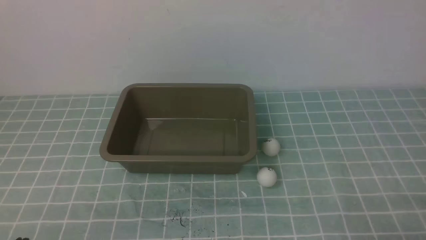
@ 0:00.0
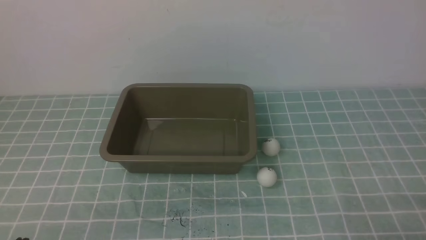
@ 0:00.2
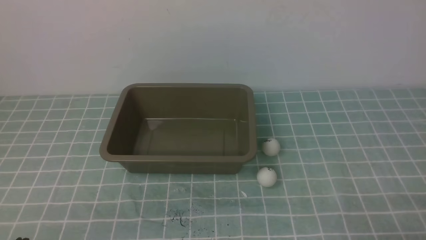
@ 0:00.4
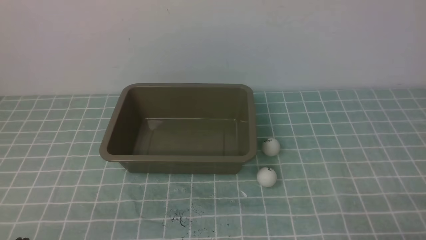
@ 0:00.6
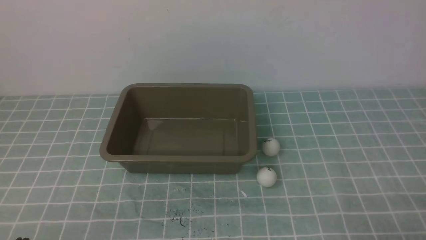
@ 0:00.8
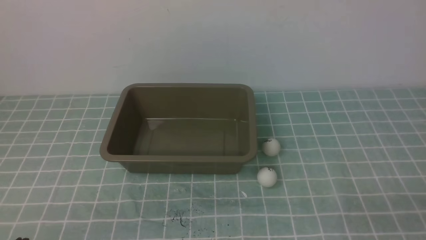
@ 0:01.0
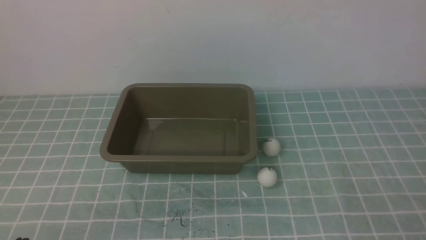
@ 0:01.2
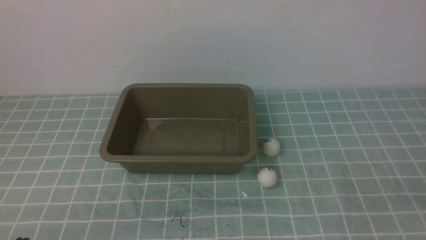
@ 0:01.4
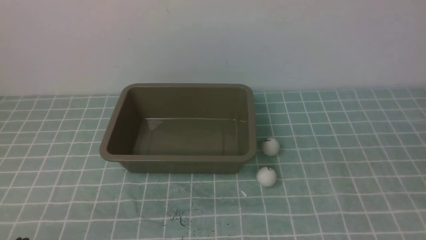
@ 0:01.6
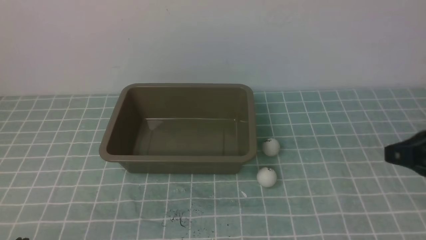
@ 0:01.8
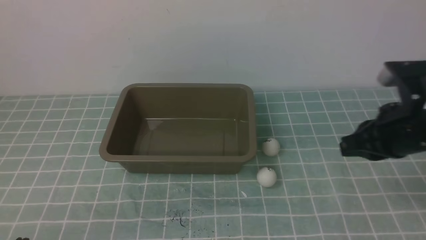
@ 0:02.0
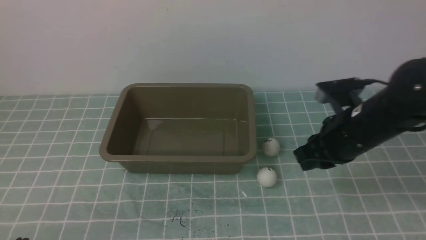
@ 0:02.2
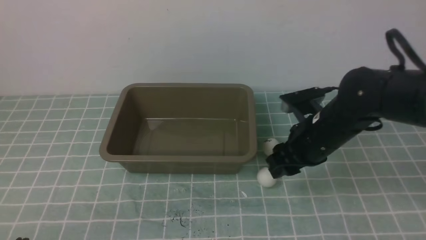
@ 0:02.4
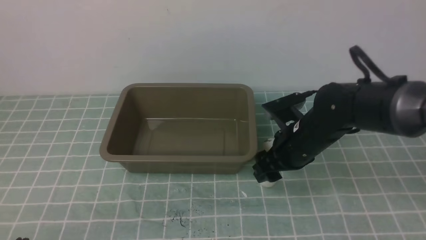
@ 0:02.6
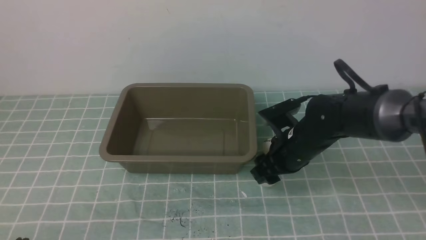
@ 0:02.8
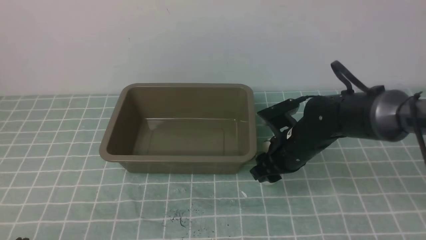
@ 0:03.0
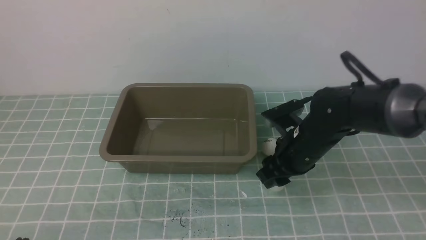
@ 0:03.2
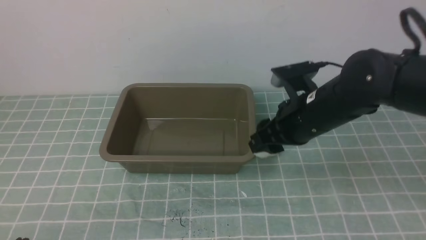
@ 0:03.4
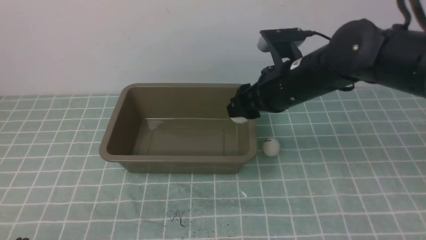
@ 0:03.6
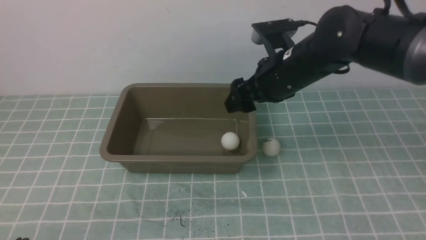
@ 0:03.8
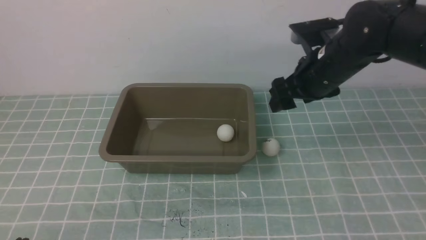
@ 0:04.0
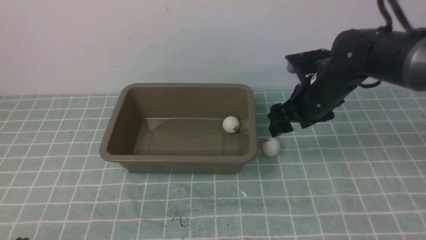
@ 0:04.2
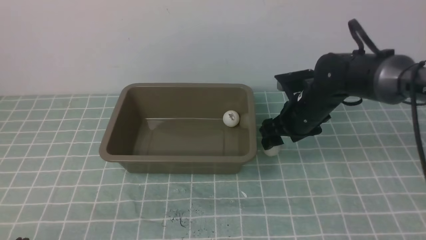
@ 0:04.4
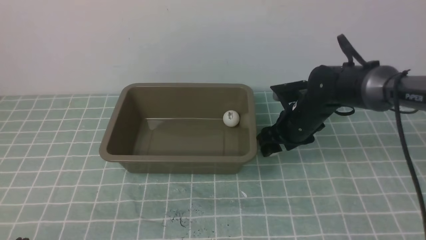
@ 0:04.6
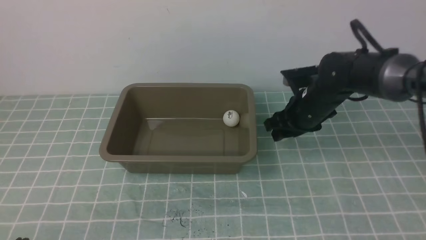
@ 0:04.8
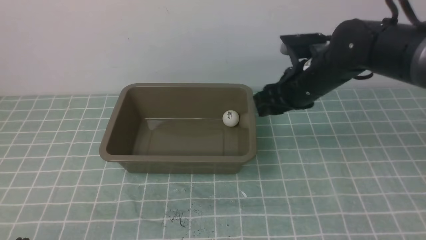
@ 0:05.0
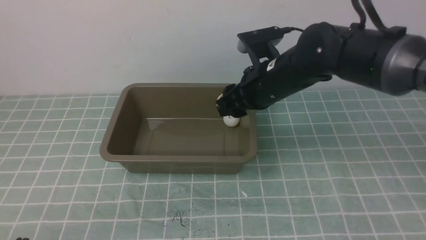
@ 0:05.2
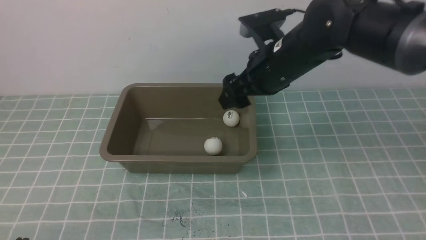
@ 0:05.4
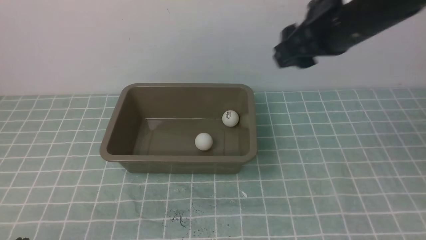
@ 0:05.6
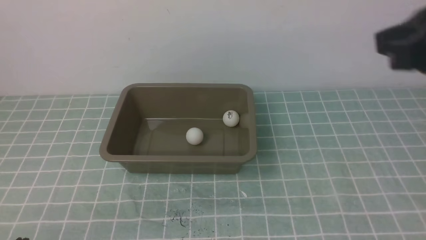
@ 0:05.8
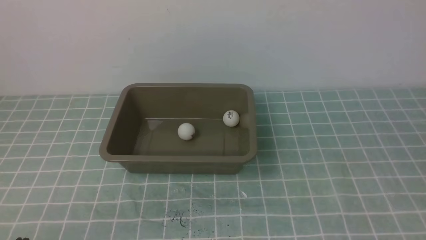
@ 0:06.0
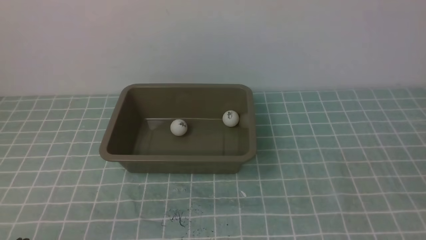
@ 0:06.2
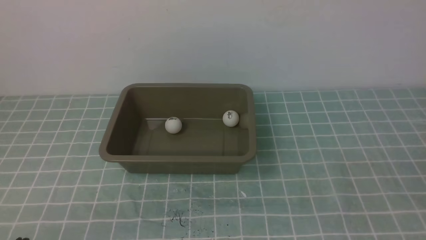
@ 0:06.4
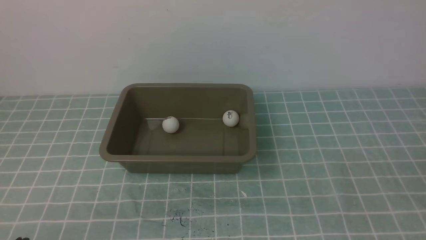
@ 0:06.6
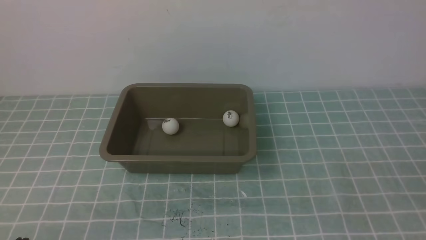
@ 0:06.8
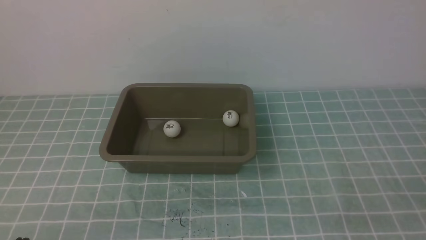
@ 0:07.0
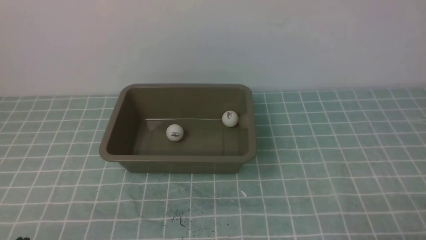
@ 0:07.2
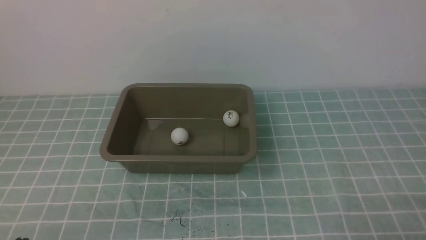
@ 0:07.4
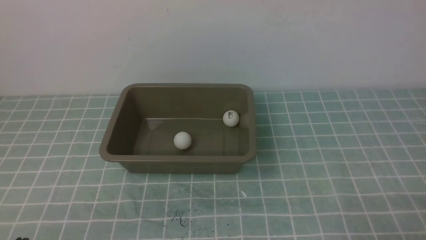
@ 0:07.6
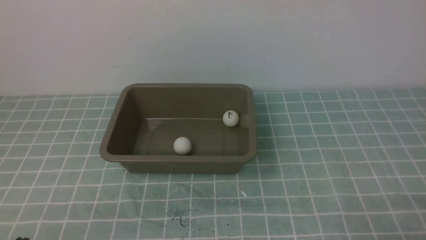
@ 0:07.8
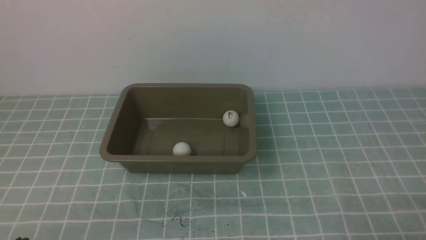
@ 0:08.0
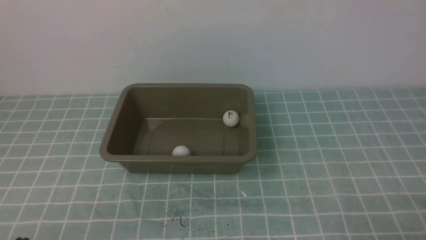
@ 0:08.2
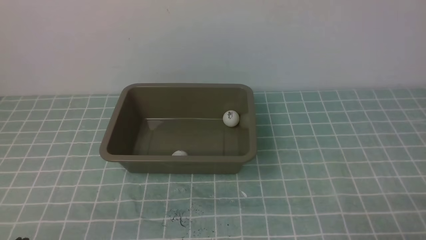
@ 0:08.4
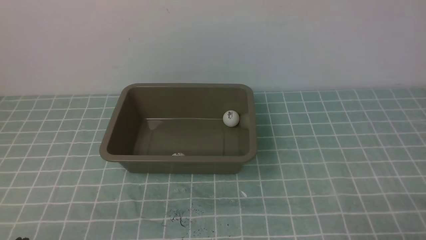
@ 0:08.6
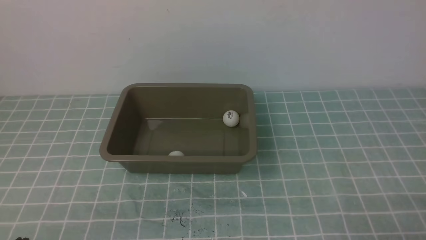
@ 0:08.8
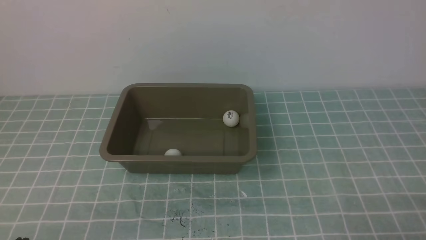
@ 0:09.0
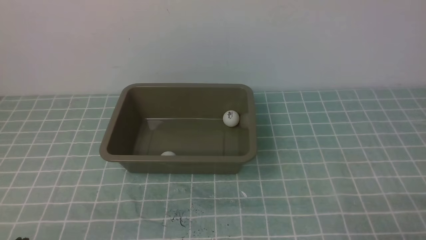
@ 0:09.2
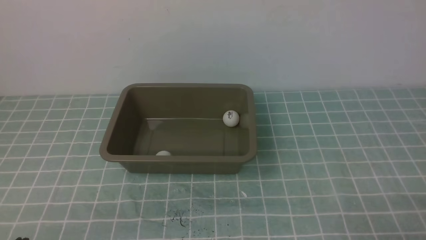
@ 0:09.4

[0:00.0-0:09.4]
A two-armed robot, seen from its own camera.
Step, 0:00.0 to 0:03.0: use the right arm to clamp the table tennis ball closest to it.
Step, 0:03.2 to 0:03.8: use the right arm to put the table tennis ball into the box.
Step, 0:04.2 to 0:04.8: use the right arm to clamp the table tennis ball closest to it.
Step, 0:05.0 to 0:05.4: use the right arm to put the table tennis ball into the box.
0:01.6 to 0:03.2: The right gripper shifts roughly 30 cm forward, to the left and downward, and opens.
0:03.2 to 0:04.8: The right gripper is displaced forward by roughly 5 cm, and moves some 10 cm upward and comes back.
0:04.8 to 0:06.2: The right gripper goes roughly 40 cm backward and upward, and closes up.
0:07.8 to 0:09.4: Both grippers stay about where they are.
